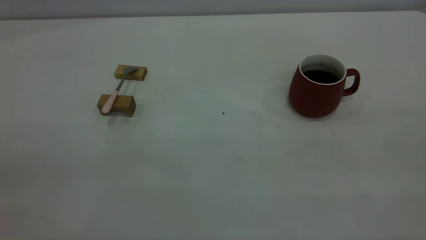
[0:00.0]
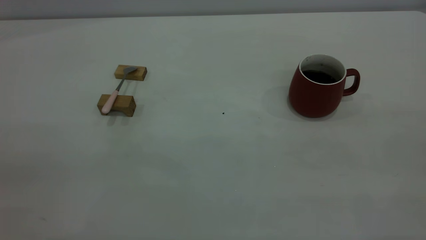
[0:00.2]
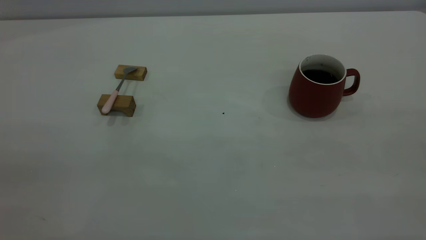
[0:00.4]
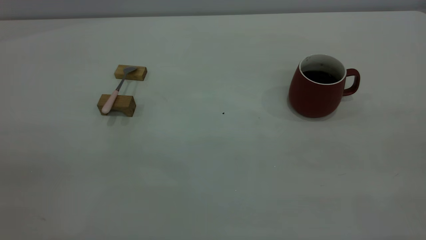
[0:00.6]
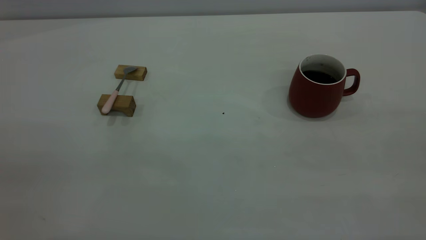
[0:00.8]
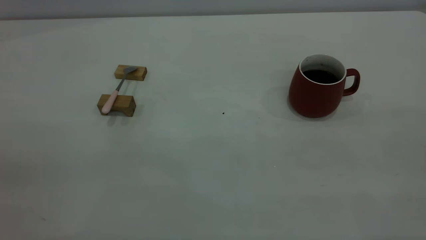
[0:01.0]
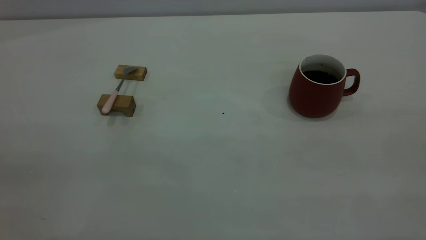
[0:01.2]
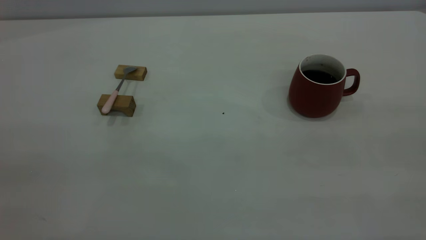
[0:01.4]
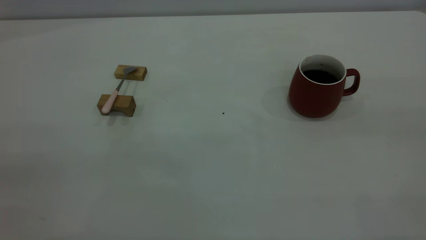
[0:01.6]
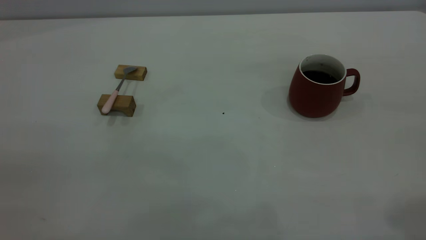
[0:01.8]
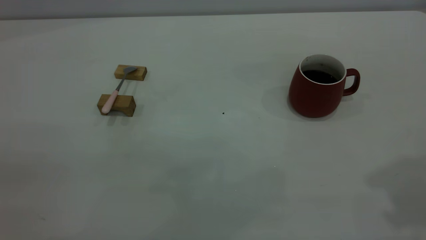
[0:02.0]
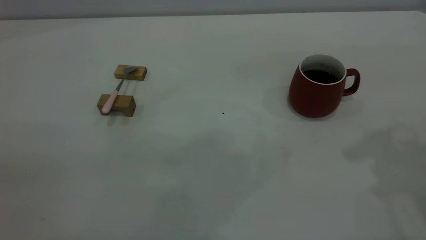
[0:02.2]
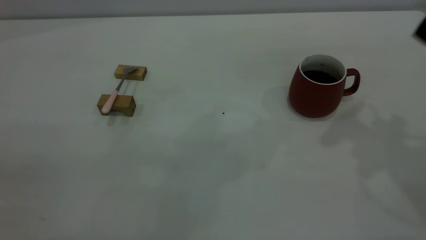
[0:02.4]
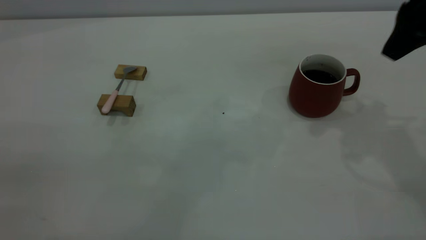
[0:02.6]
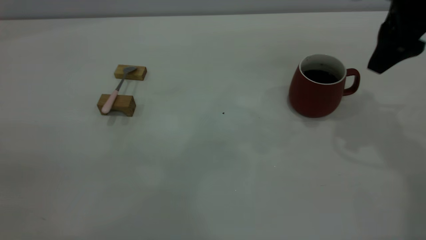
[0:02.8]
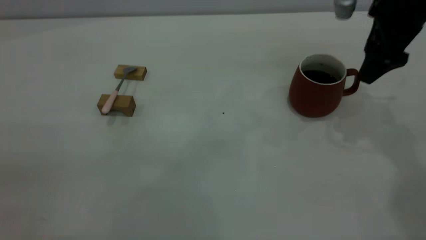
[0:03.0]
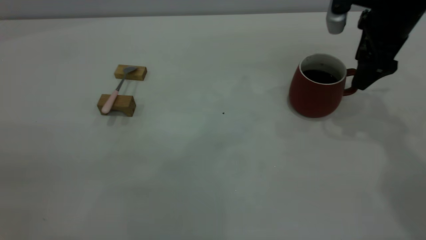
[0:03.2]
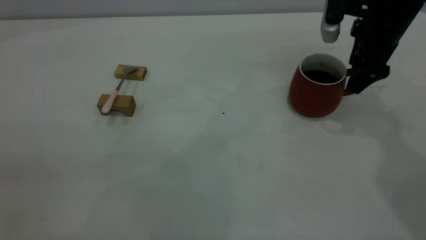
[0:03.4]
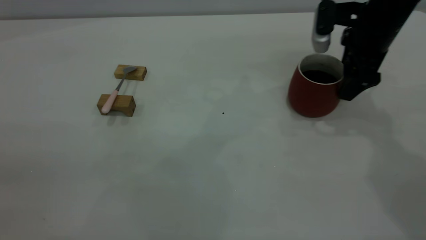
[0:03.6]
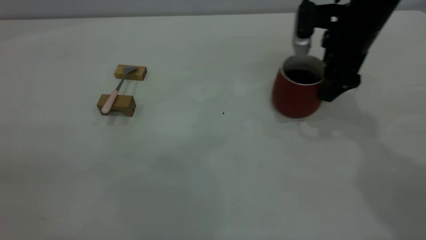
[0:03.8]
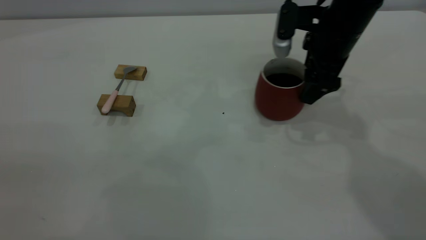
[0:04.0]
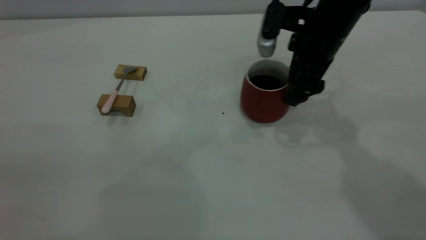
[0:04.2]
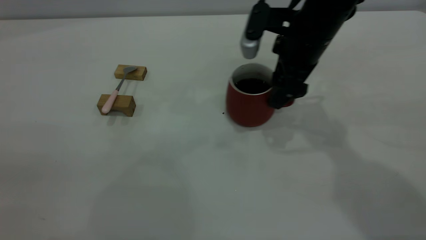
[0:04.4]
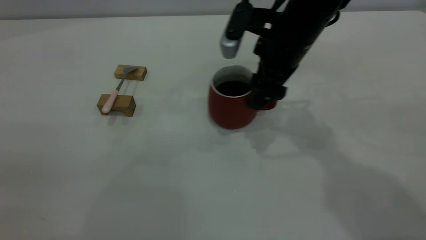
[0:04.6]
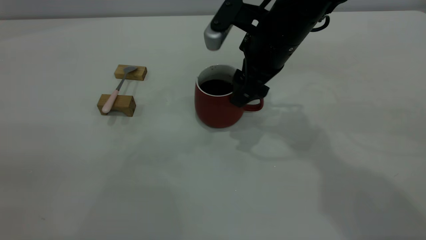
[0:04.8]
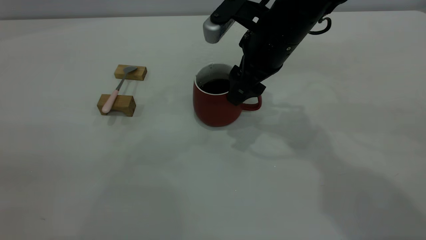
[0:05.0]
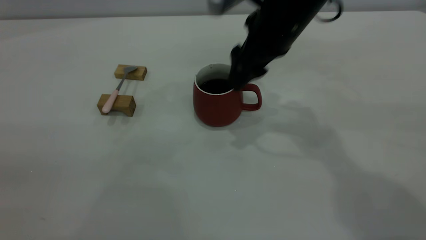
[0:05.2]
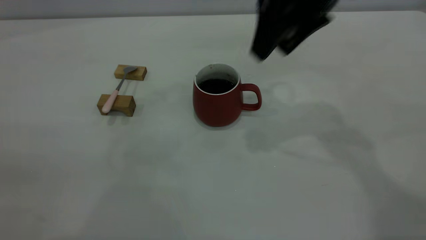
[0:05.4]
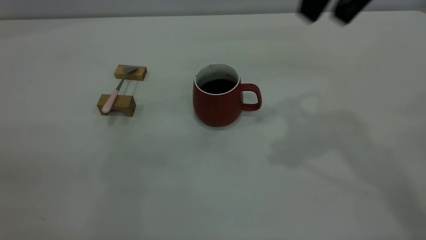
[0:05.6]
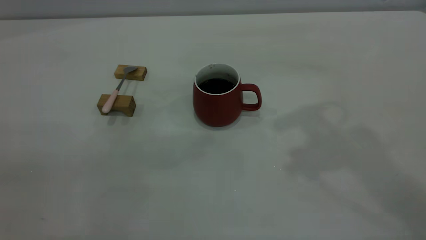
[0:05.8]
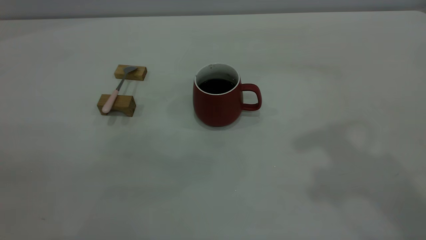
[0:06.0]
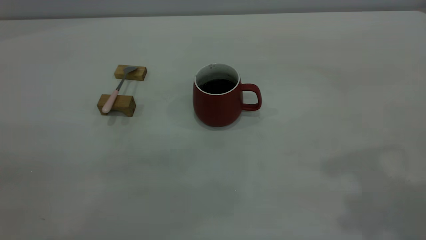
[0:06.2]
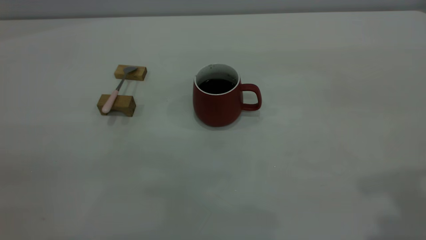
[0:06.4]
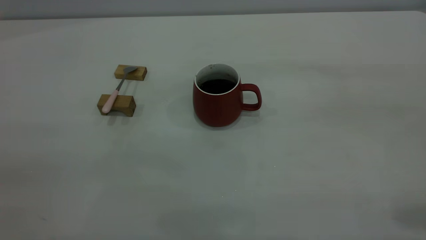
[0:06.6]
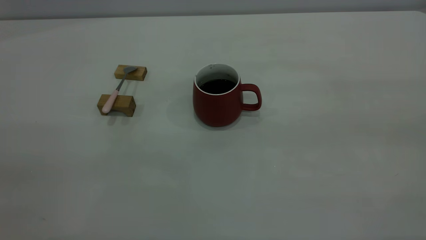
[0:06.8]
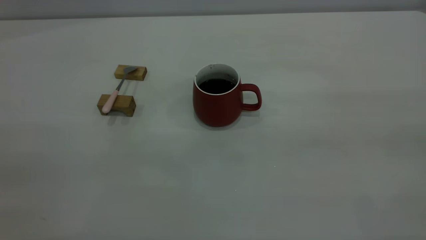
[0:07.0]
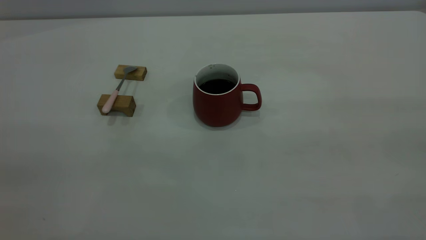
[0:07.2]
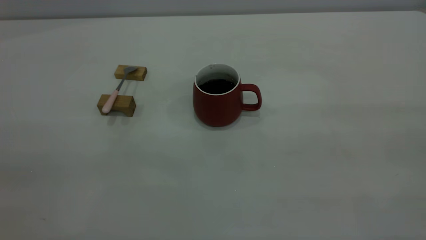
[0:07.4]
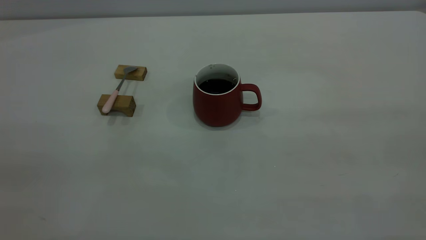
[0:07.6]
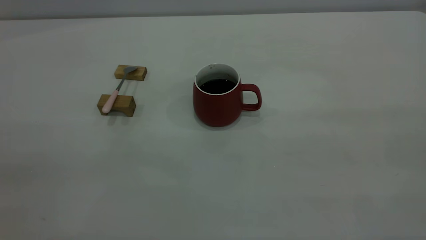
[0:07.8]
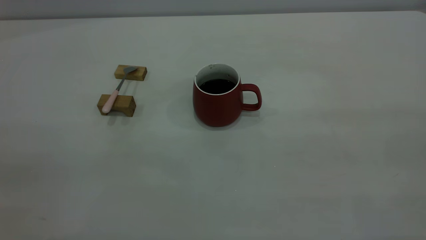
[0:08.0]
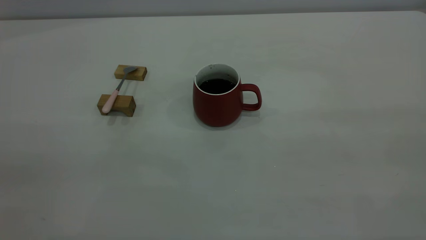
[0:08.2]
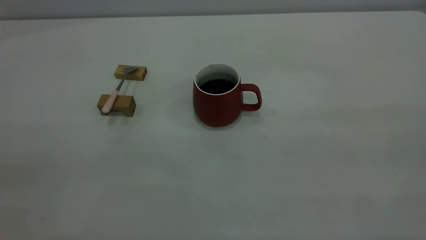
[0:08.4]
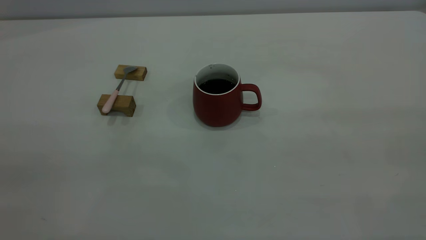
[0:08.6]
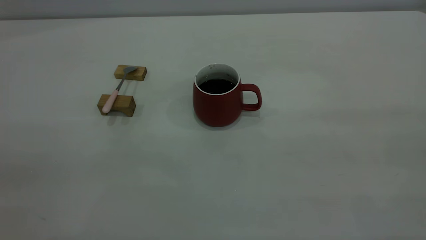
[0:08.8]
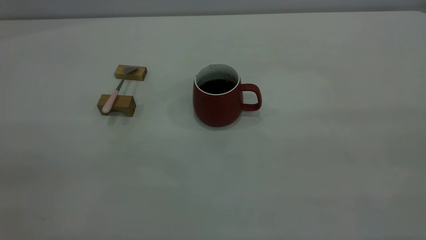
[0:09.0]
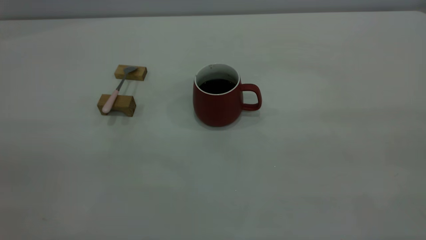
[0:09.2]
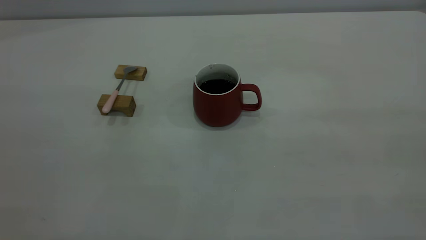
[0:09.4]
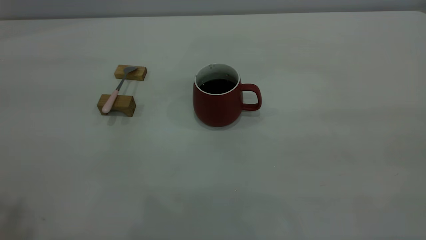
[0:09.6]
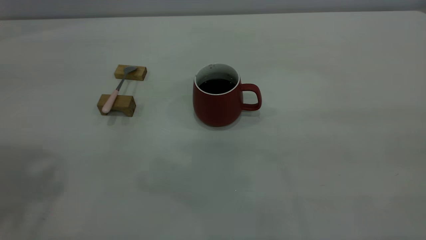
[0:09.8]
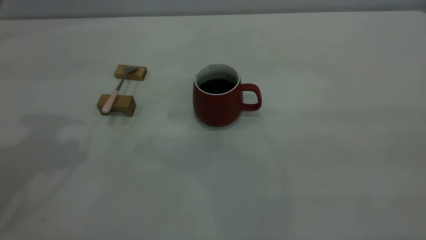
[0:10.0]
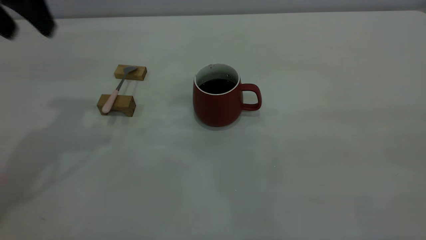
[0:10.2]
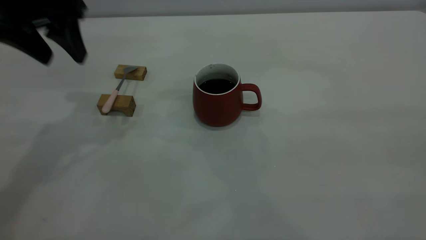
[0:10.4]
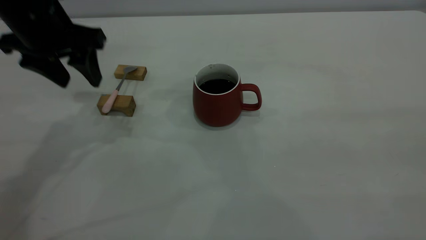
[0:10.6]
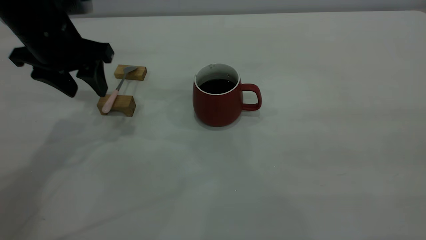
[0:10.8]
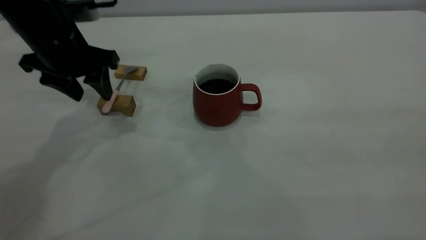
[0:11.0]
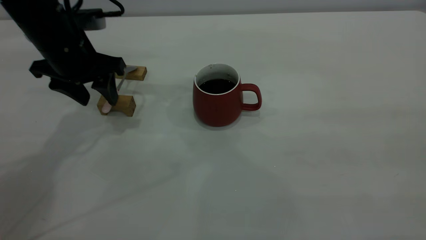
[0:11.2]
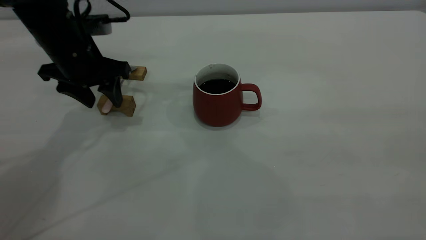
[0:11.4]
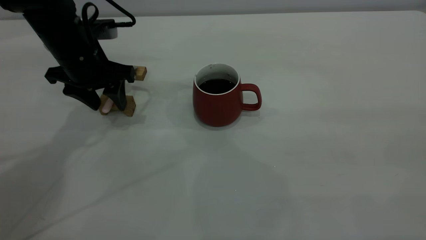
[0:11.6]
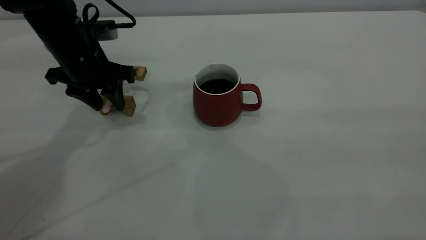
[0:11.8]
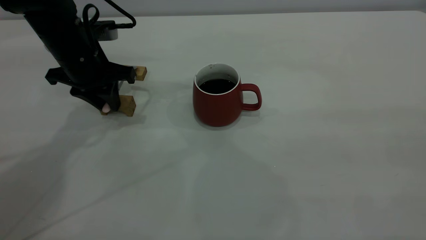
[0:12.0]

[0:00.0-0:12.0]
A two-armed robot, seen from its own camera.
Step, 0:00.0 to 0:05.2: Move the cup with coffee to the center of view.
0:01.6 to 0:03.0: The right gripper moves forward and downward, about 40 cm, and opens up.
0:03.0 to 0:04.4: The right gripper travels to the left by about 10 cm.
0:04.4 to 0:06.0: The right gripper shifts approximately 30 cm upward and backward.
0:09.0 to 0:10.4: The left gripper travels forward by some 35 cm.
0:10.4 to 0:12.0: The left gripper goes roughly 10 cm downward, and closes up.

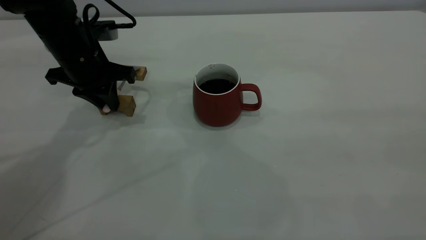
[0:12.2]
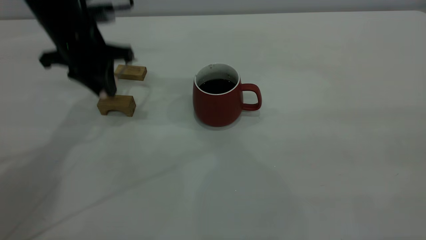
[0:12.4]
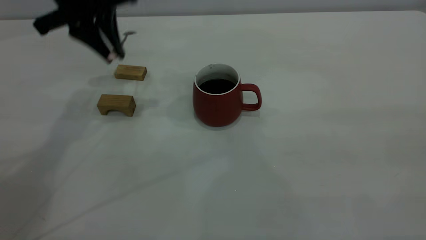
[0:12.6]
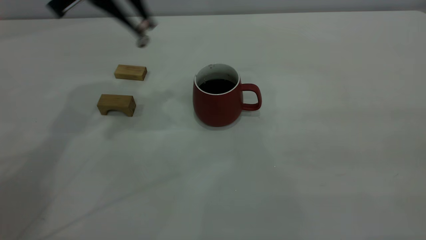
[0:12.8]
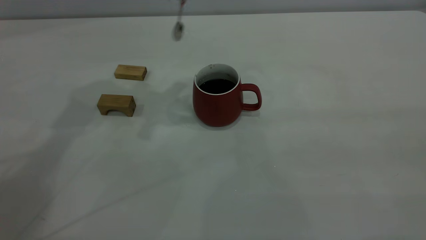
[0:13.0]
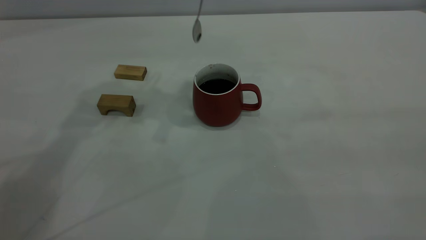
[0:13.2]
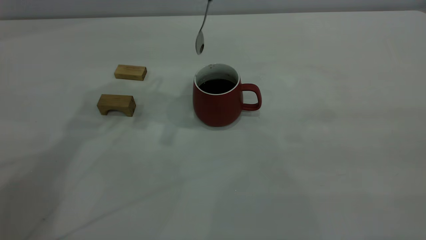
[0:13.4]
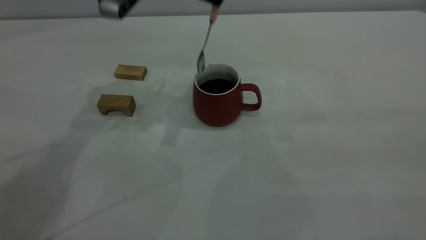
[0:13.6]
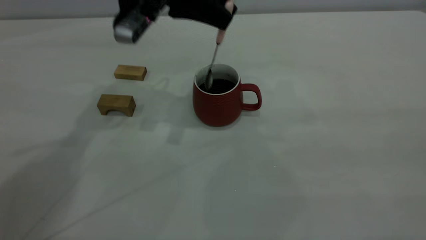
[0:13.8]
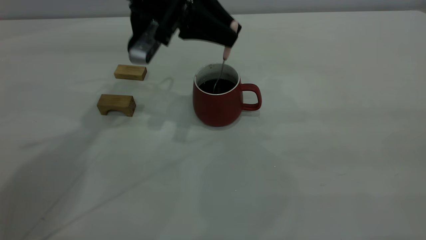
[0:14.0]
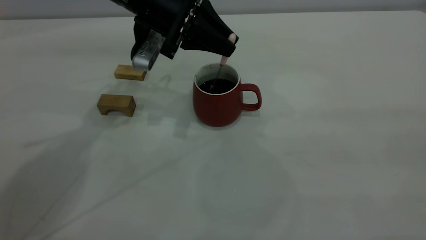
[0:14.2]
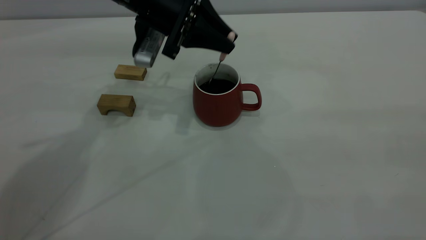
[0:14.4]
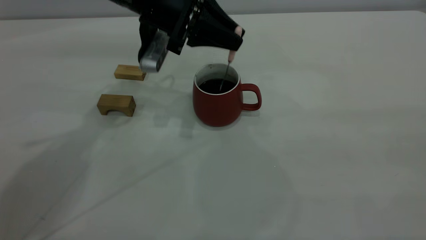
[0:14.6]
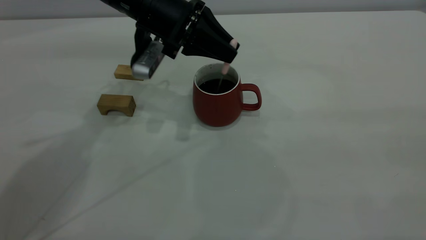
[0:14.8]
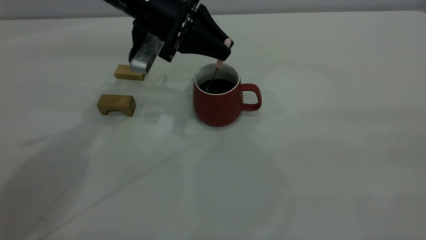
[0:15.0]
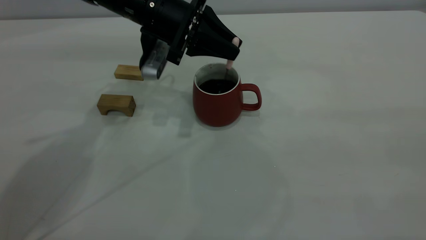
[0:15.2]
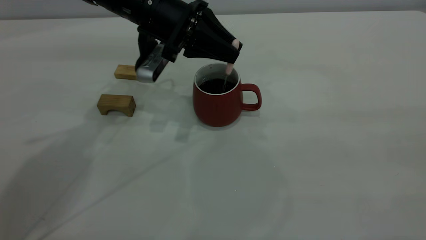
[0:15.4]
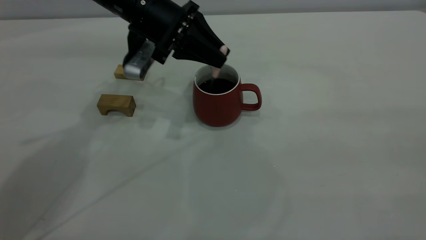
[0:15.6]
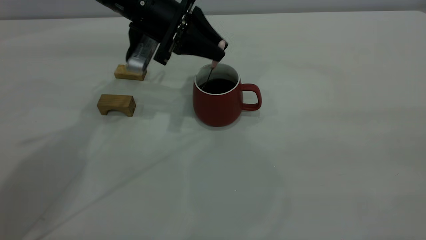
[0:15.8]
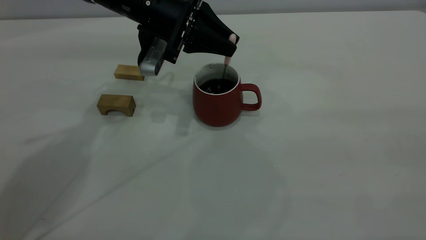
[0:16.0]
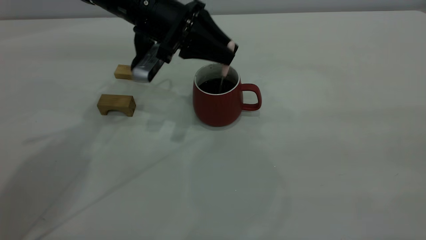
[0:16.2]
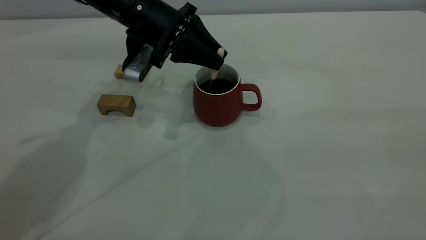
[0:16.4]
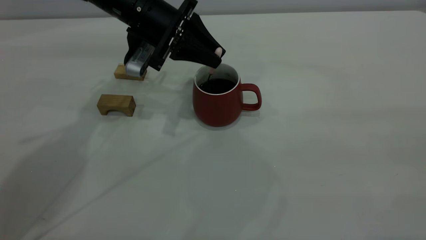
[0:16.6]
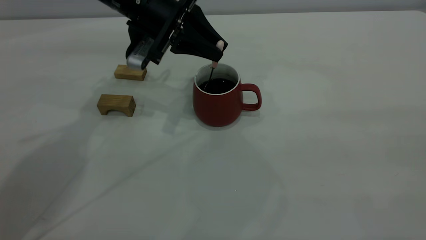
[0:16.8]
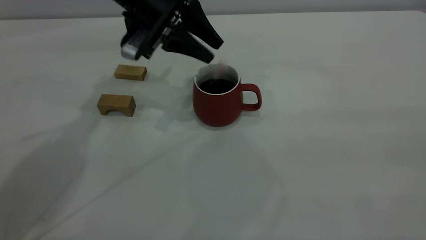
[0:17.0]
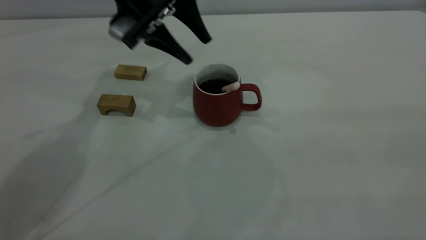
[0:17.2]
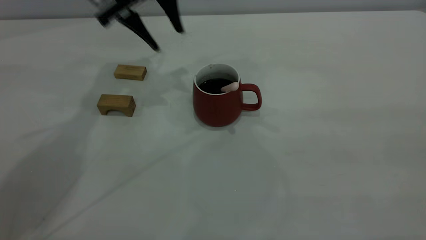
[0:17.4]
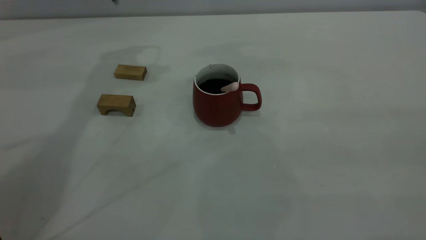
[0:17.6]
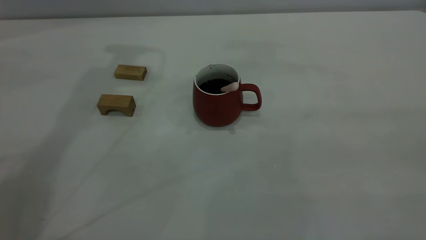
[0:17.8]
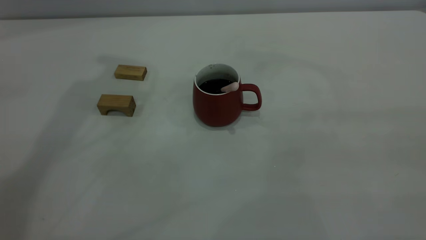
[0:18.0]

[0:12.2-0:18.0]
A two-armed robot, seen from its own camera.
Step, 0:12.6 to 0:17.2: Stir the coffee in the cup.
0:12.2 to 0:13.6: The left gripper is displaced upward and to the right by approximately 15 cm.
0:13.6 to 0:15.0: The left gripper shifts about 10 cm downward.
0:15.0 to 0:16.6: There are only small adjustments of the grippers.
0:16.6 to 0:18.0: The left gripper shifts some 25 cm upward, and opens.
